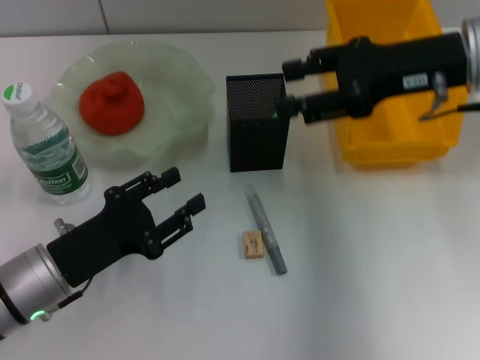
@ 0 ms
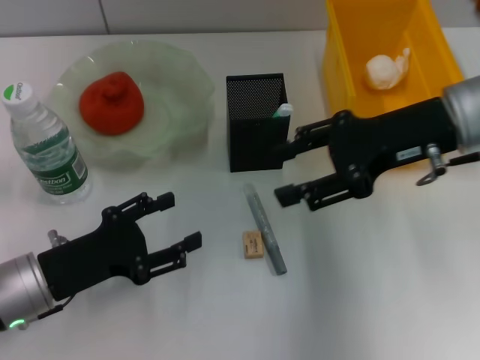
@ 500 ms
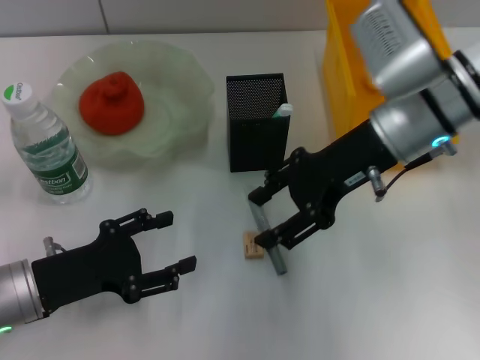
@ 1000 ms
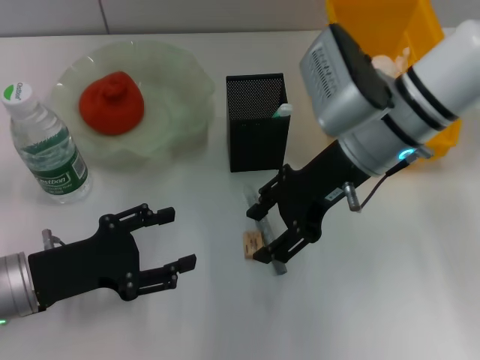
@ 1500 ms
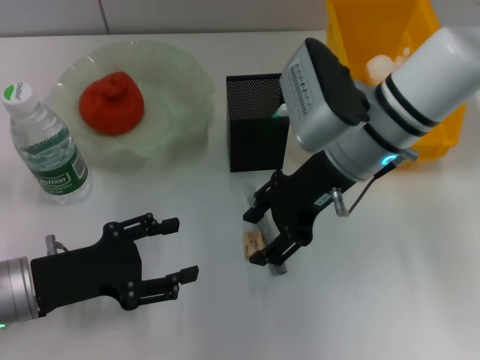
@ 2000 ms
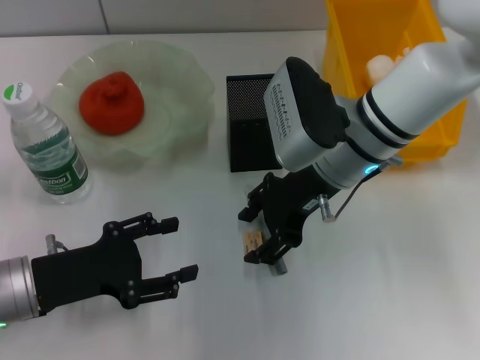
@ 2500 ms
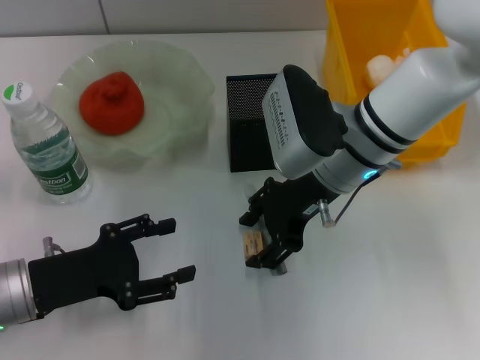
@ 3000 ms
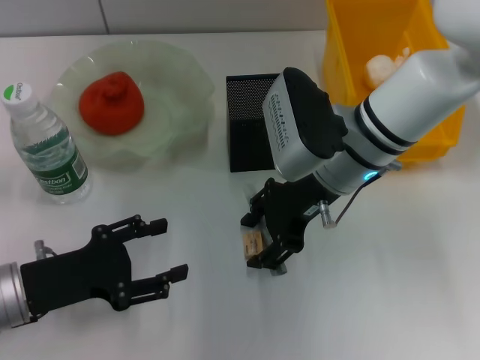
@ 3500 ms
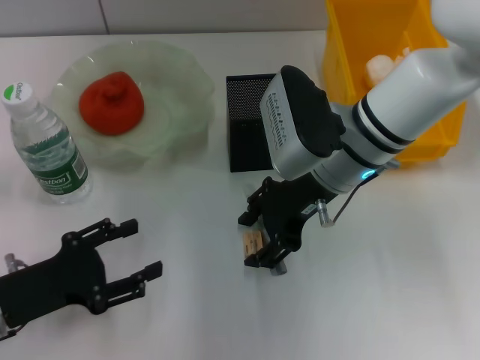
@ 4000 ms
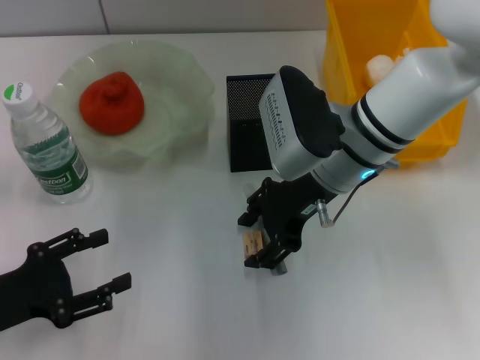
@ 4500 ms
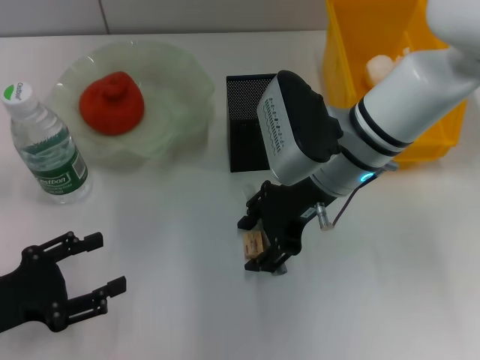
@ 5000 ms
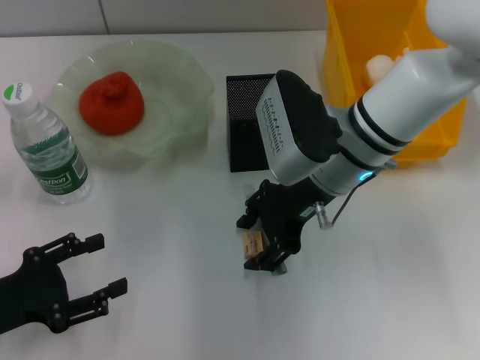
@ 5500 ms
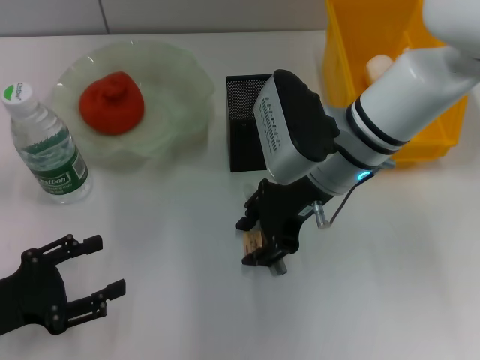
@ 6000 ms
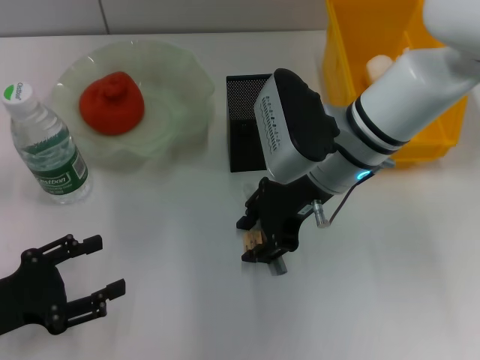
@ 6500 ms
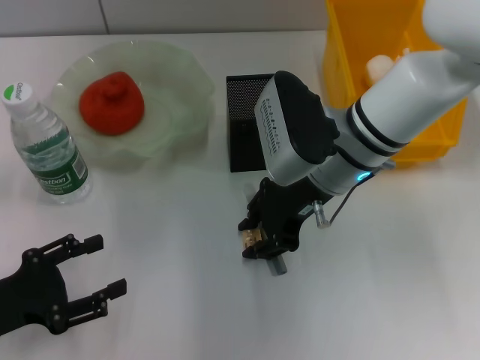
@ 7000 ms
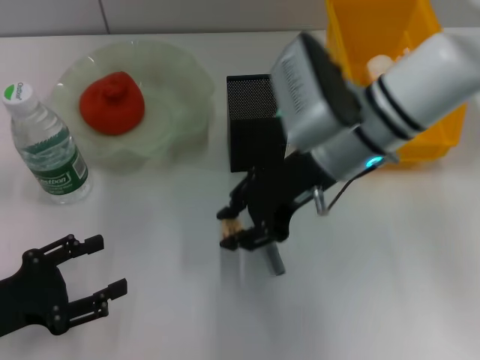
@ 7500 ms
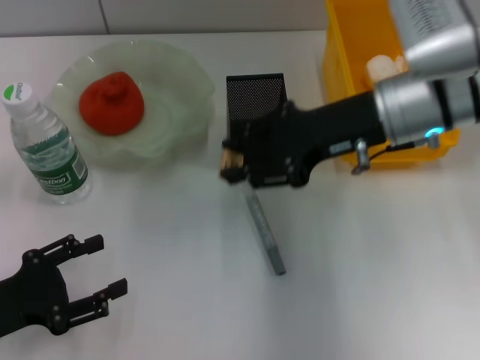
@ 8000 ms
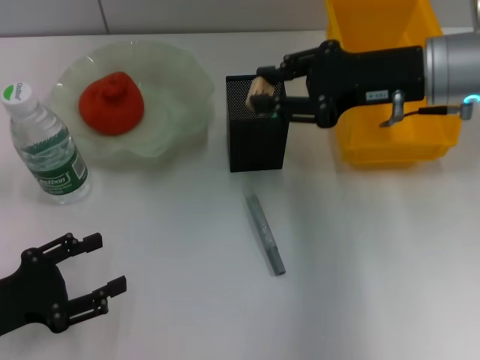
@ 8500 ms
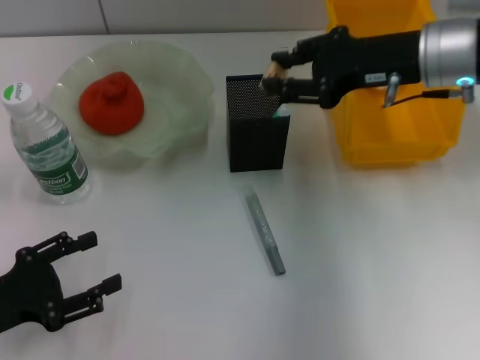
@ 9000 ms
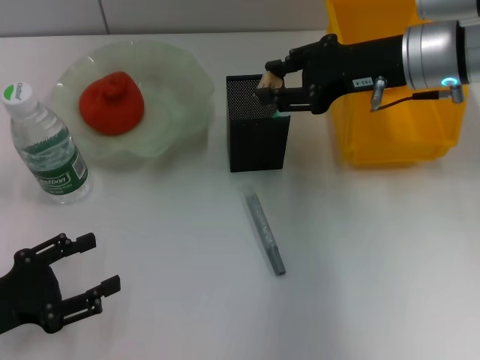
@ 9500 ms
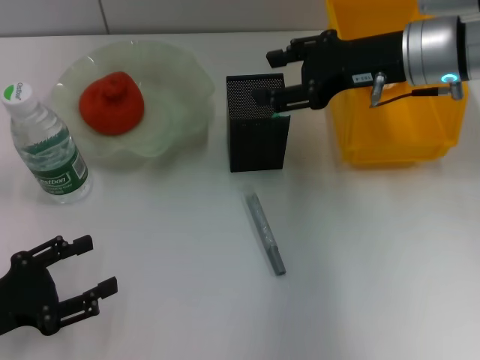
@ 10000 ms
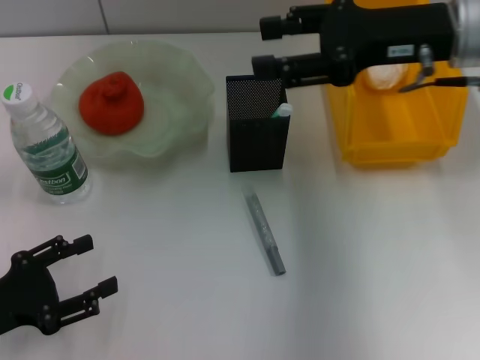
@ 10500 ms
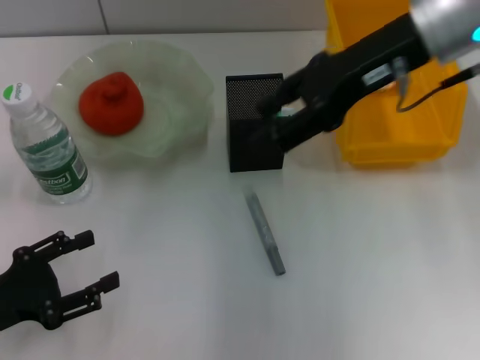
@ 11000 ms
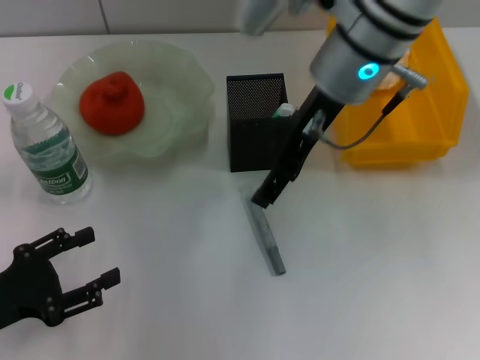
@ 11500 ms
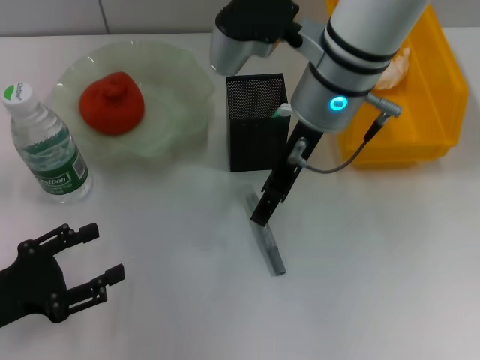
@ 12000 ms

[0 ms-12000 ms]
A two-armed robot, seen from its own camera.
Step, 0 ms to 7000 ms: Grab the eraser with the right hand.
Step, 7500 ms to 9500 ms: Put the eraser into the pen holder with the right hand.
0 ms to 2000 ms: The right gripper goes some 10 cm to the left and downward.
2000 ms to 4000 ms: The grippers move only a little.
4000 ms to 6000 ms: The grippers make only small movements.
6000 ms to 8000 ms: The right gripper travels to the right by about 5 cm.
8000 ms to 10000 ms: The right gripper opens up.
10000 ms to 12000 ms: The right gripper travels to the left by roughly 10 cm.

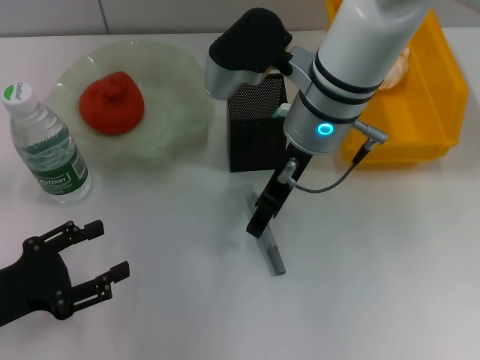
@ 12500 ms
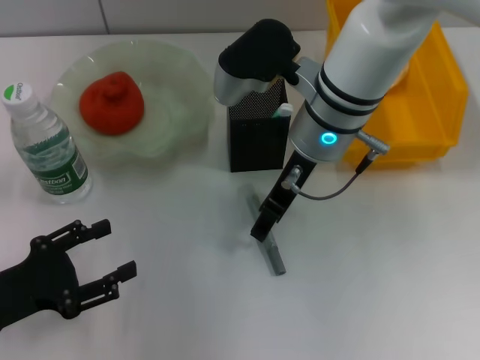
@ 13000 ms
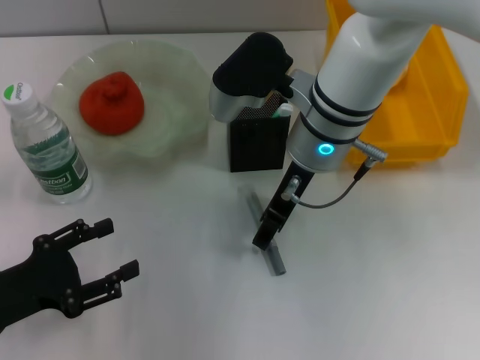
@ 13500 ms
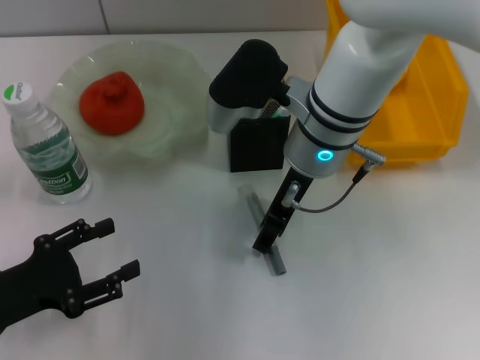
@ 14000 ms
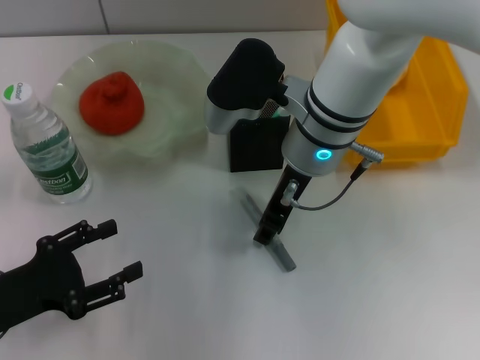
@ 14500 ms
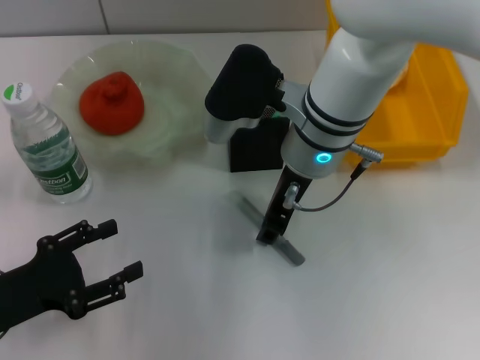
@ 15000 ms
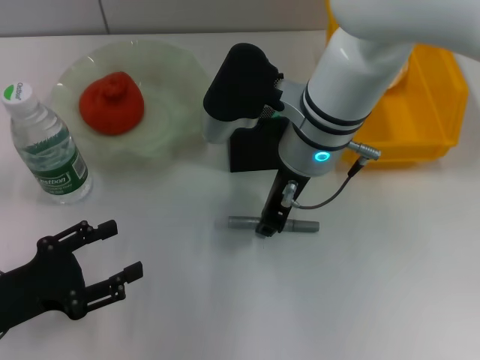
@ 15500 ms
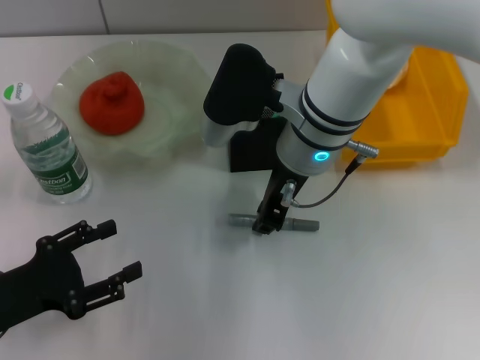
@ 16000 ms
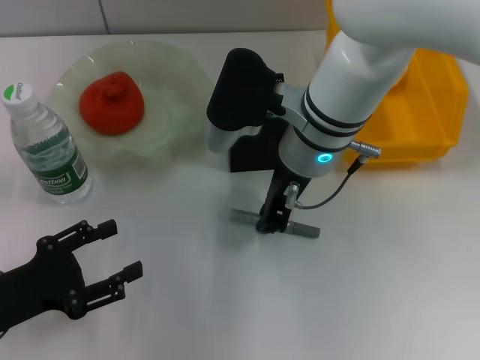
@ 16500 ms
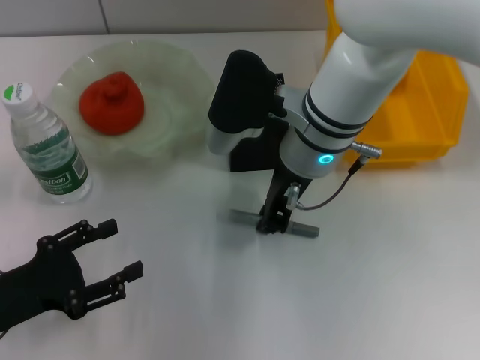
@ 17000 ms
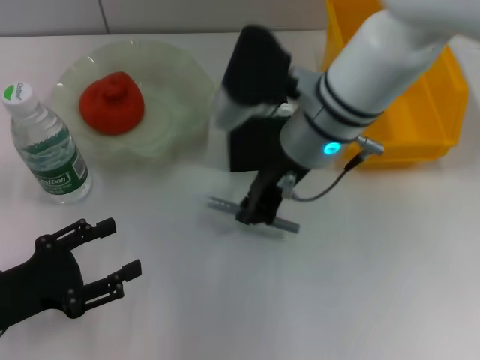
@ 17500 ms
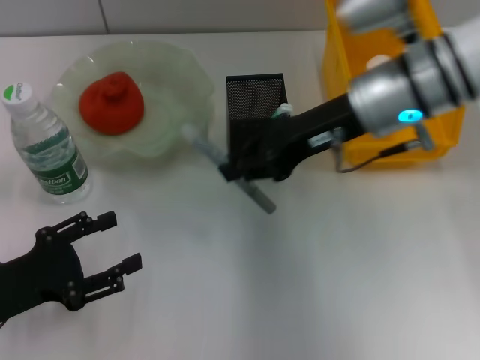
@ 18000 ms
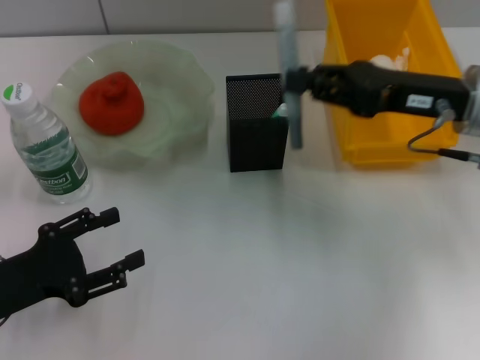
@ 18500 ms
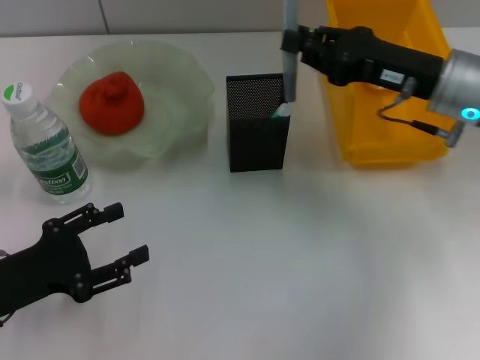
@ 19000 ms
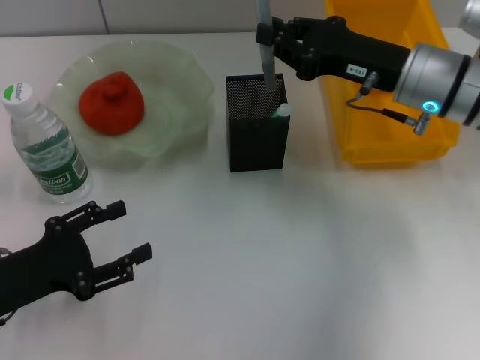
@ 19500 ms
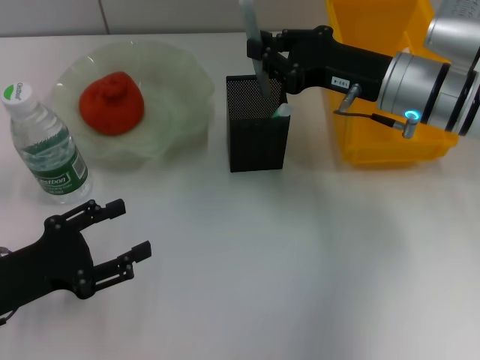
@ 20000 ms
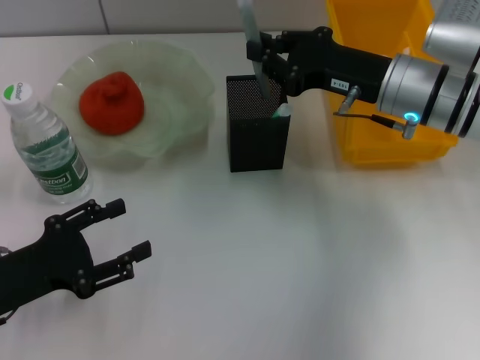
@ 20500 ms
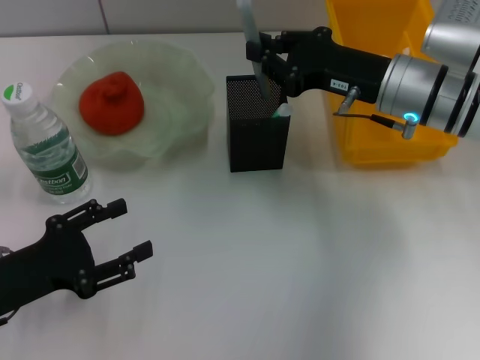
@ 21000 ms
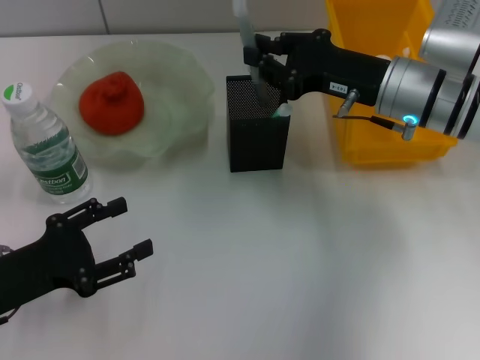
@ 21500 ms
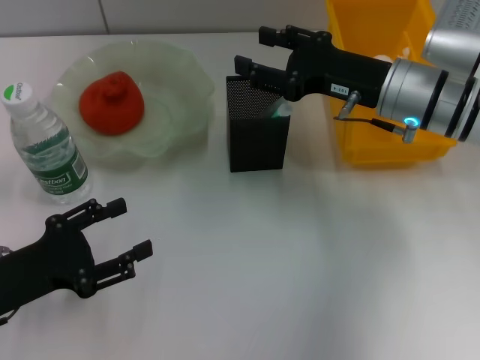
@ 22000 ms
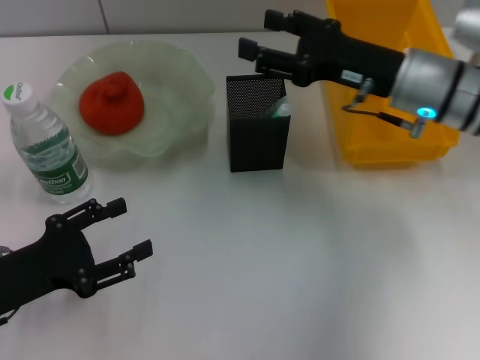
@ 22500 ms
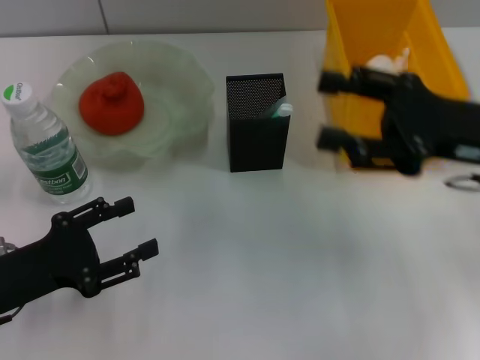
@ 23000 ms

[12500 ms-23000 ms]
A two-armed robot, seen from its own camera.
Step, 12500 ms to 16500 ms: Grab the gray glue with the right hand.
Step, 17000 ms to 21500 ms: Place the gray glue into the pen holder with the right hand.
12500 ms to 14500 ms: The grippers stay close to where they were, moving slightly.
14500 ms to 16500 ms: The right gripper closes.
16500 ms to 19000 ms: The right gripper shifts roughly 15 cm to the right.
19000 ms to 21000 ms: There are only small adjustments of the grippers.
21000 ms to 23000 ms: The right gripper moves backward and to the right, roughly 10 cm, and opens its fingers.

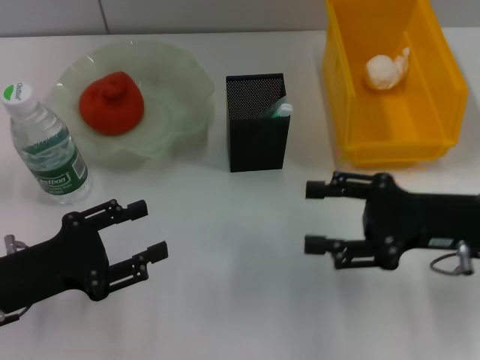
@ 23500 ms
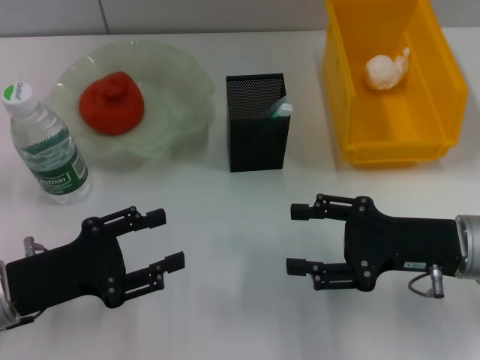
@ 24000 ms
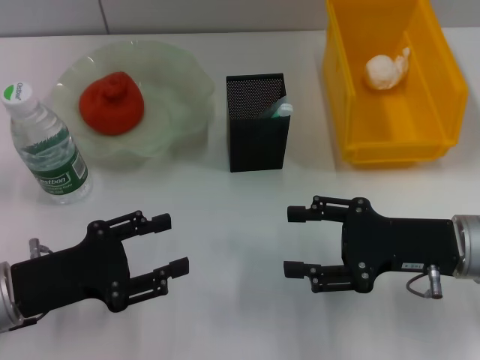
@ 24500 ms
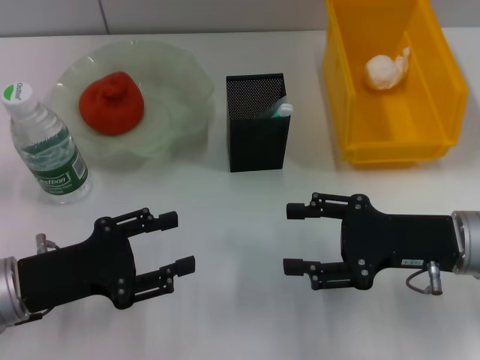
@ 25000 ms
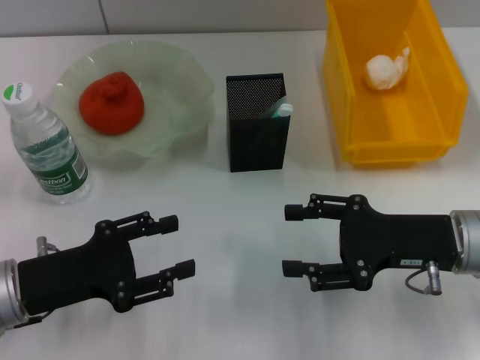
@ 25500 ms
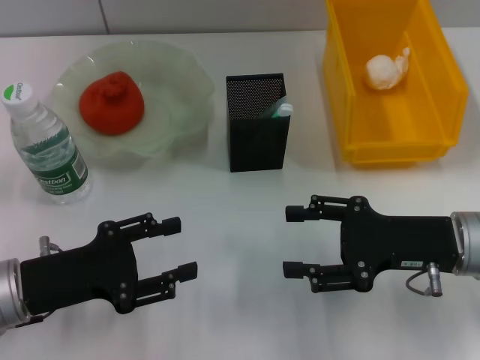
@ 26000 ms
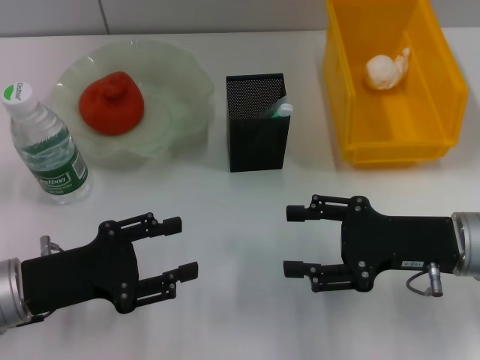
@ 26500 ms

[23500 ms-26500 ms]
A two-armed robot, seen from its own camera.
23500 ms to 25000 ms: The grippers make only small movements.
25000 ms to 26500 ms: Neither gripper changes place.
